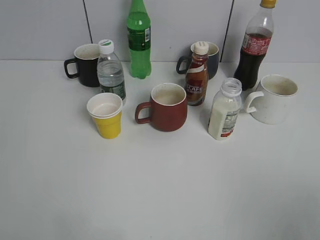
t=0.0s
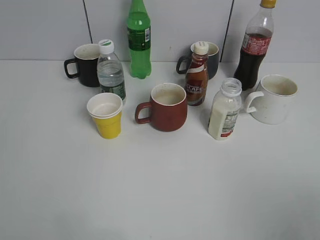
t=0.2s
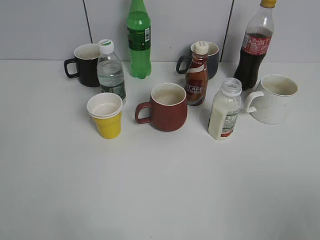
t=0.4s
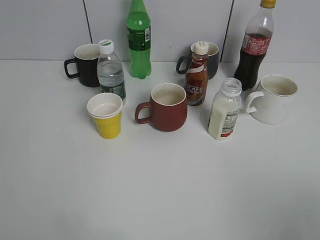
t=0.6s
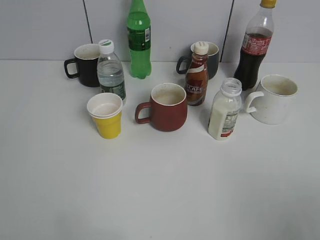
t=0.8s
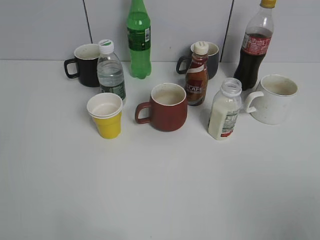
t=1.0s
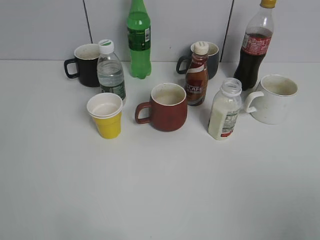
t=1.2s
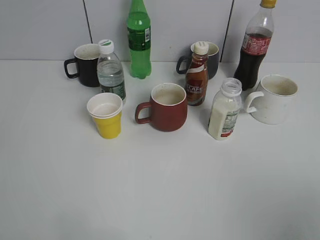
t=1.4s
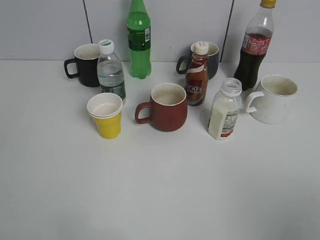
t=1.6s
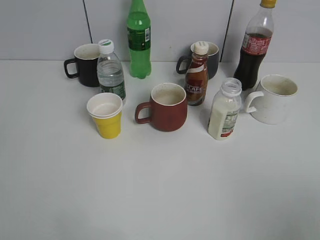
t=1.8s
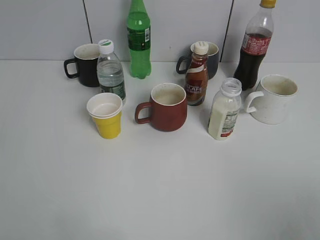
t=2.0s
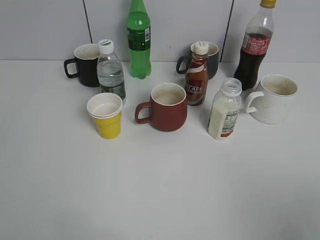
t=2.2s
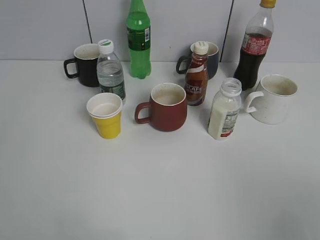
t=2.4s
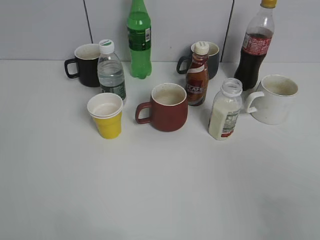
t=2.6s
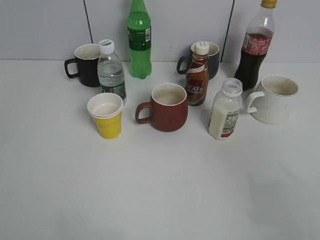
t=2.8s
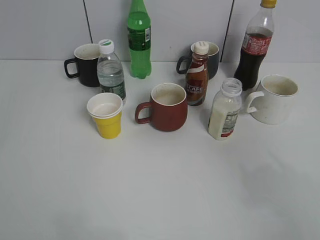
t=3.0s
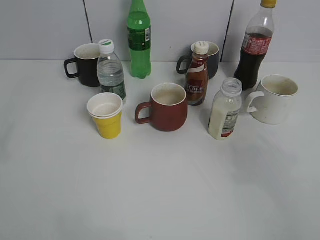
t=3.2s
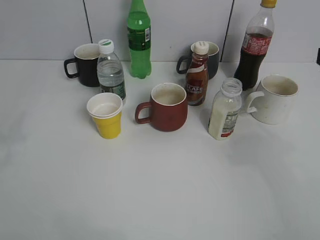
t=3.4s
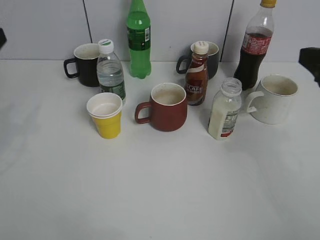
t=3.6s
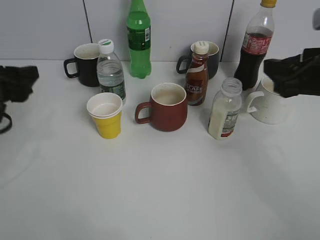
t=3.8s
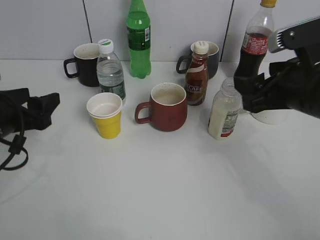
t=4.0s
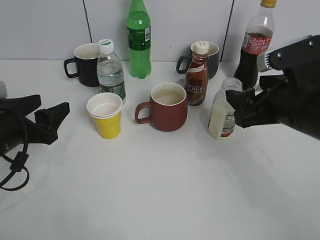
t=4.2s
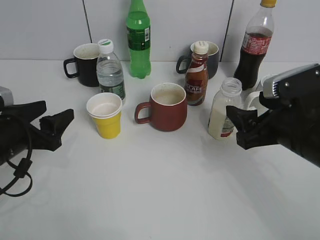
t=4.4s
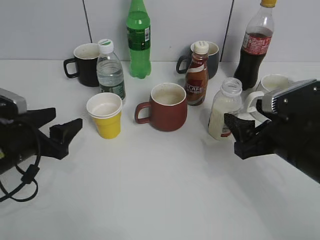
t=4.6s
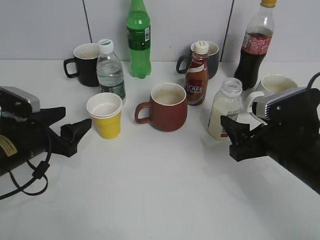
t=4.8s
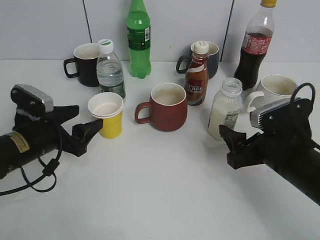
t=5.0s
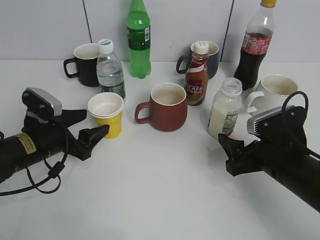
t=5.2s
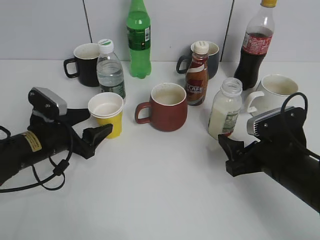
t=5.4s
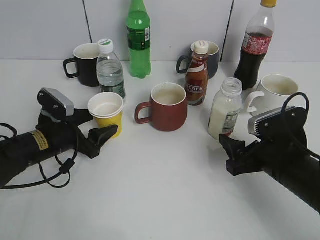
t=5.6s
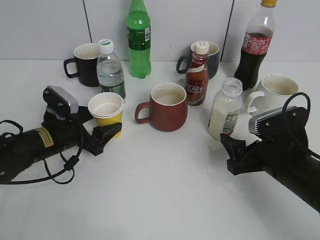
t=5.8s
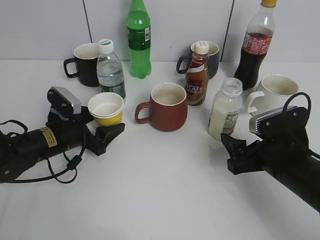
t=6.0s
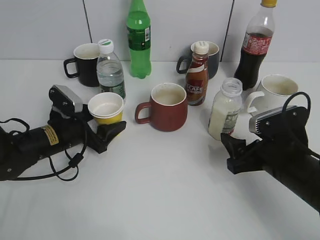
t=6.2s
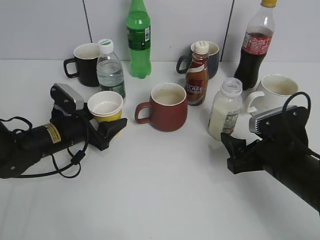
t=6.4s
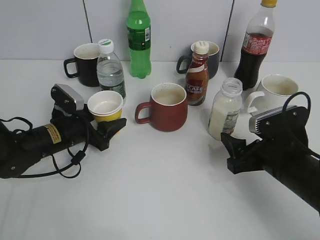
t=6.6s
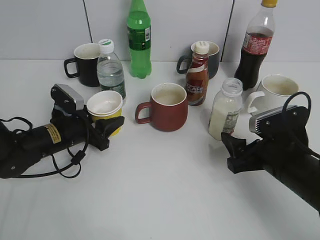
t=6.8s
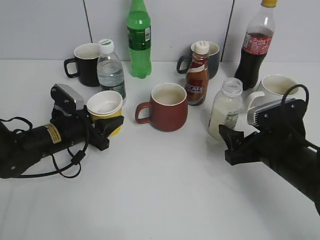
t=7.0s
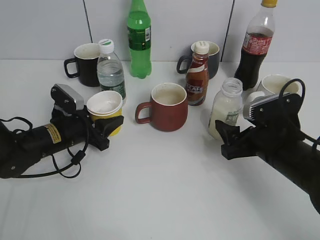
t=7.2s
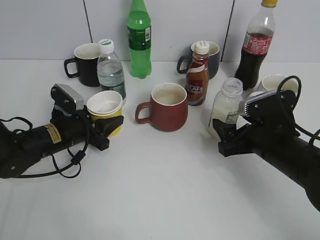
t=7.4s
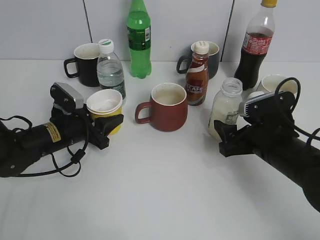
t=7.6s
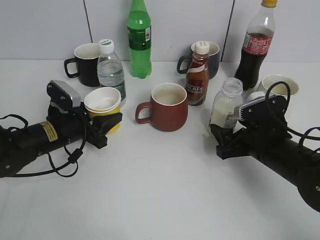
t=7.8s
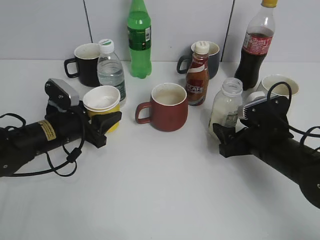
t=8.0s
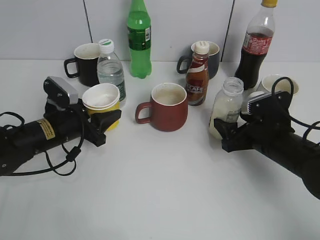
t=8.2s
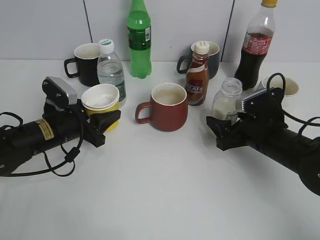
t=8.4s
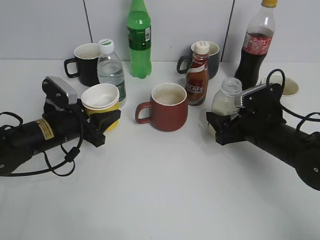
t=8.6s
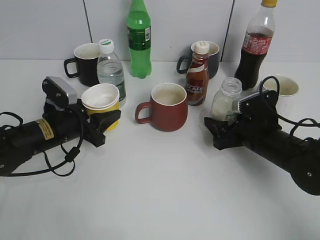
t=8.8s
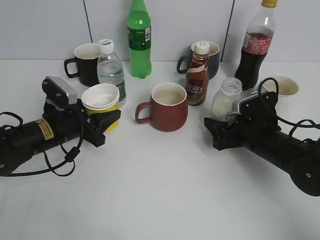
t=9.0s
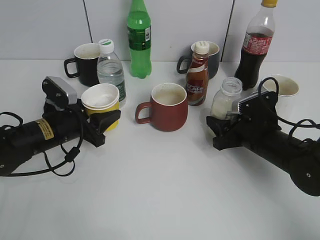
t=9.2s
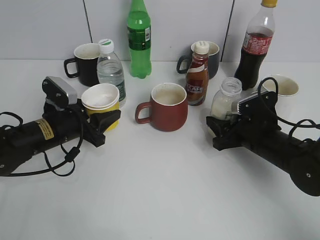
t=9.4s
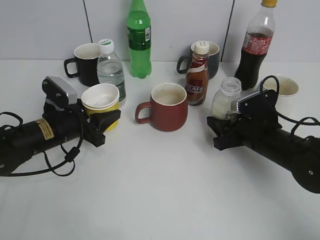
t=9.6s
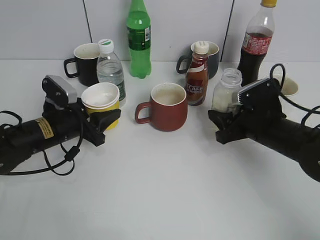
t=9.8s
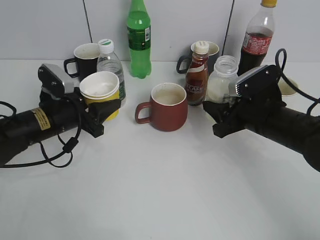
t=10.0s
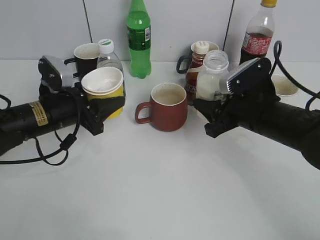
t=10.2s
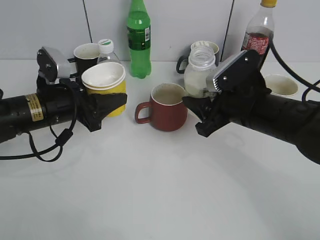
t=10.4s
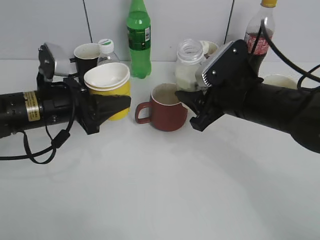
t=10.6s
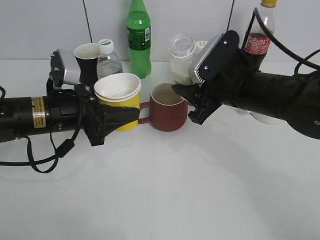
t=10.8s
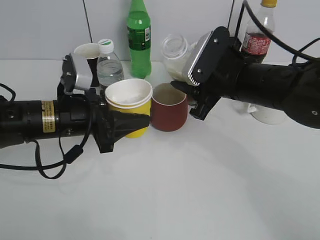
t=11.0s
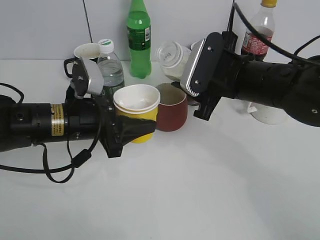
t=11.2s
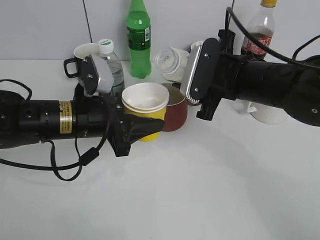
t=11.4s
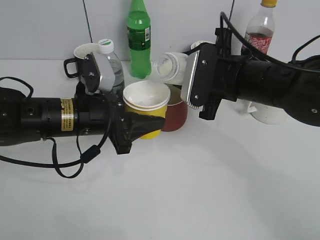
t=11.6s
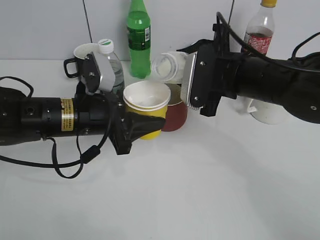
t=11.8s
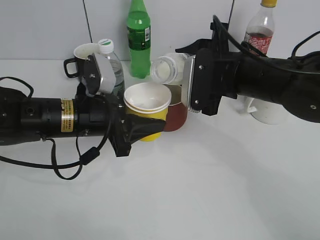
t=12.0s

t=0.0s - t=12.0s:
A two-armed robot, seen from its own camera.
Step, t=3.4s - t=6.8s: Grasp the yellow paper cup with left gripper.
Step, t=7.0s - t=8.0s: Lift the yellow paper cup with left gripper.
Step, t=8.4s - t=9.4s: Grasp the bottle with yuexian Milk with right gripper.
t=1.6s - t=3.0s: The right gripper is displaced forward by approximately 10 cm.
t=3.0s - t=4.4s: The left gripper goes approximately 25 cm downward and forward; the right gripper travels downward, forward and to the left by roughly 20 cm.
t=4.4s - t=6.0s: The right gripper moves downward, approximately 5 cm; the left gripper is displaced forward and downward by some 10 cm.
t=6.0s - t=7.6s: The left gripper closes its fingers.
t=7.6s - t=9.0s: The right gripper ends up roughly 5 cm from where it was.
t=9.0s - t=10.4s: The right gripper moves upward, roughly 10 cm, and closes. The left gripper shifts approximately 5 cm upward.
t=10.4s - t=12.0s: The left gripper moves to the right, about 5 cm. The right gripper shifts by approximately 5 cm.

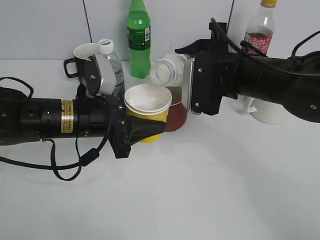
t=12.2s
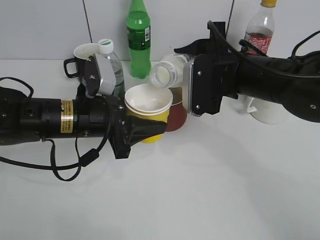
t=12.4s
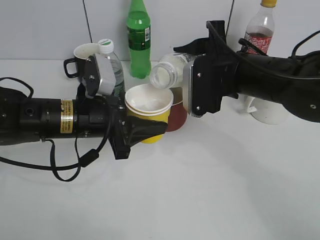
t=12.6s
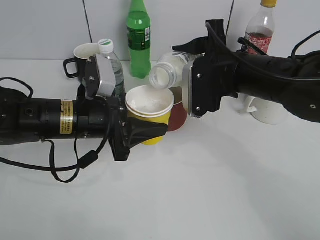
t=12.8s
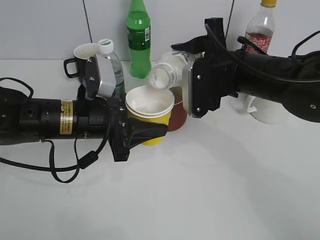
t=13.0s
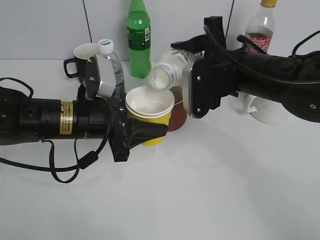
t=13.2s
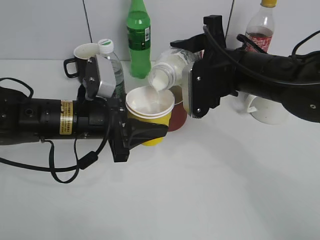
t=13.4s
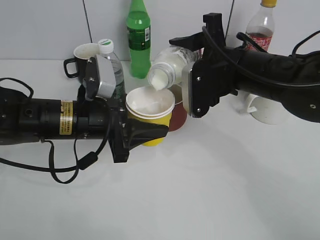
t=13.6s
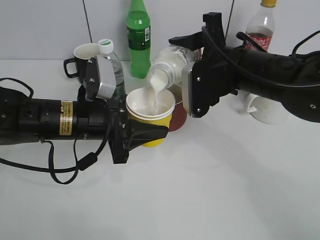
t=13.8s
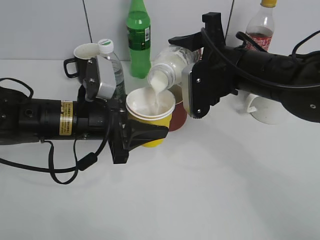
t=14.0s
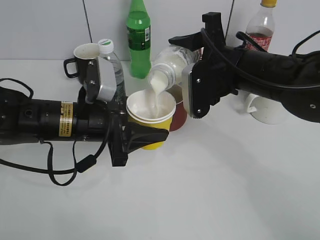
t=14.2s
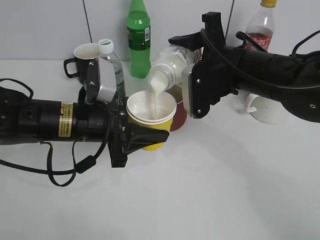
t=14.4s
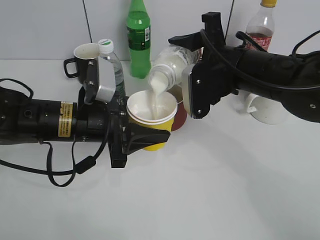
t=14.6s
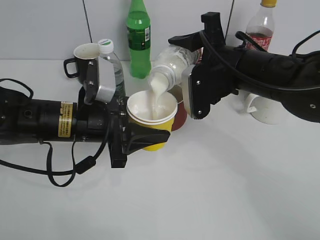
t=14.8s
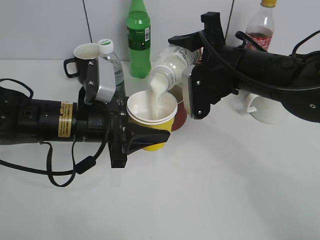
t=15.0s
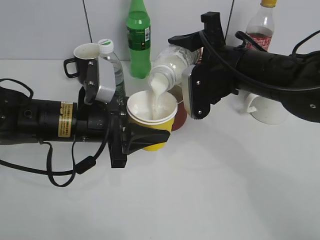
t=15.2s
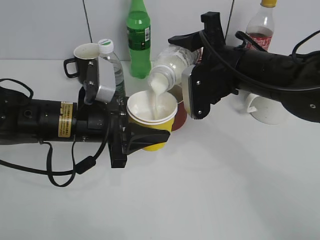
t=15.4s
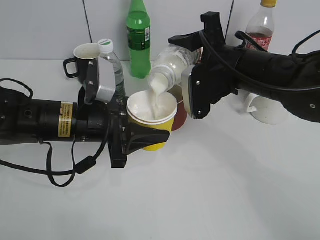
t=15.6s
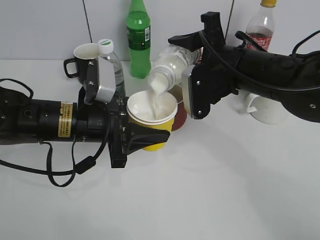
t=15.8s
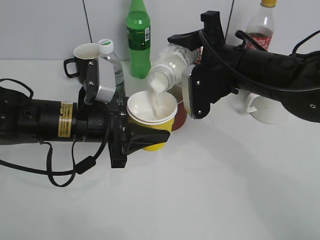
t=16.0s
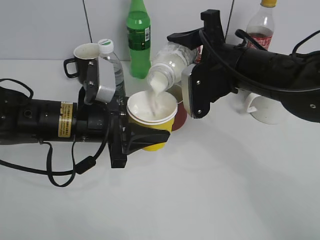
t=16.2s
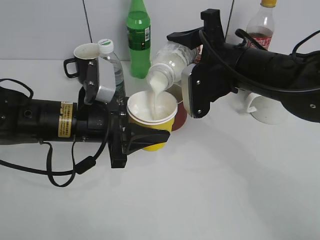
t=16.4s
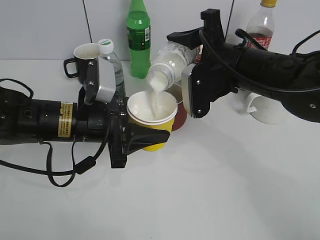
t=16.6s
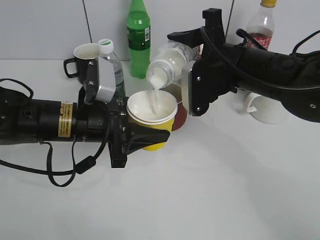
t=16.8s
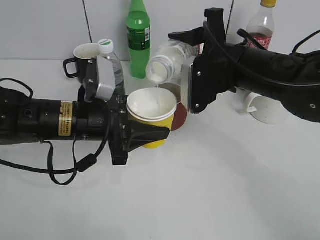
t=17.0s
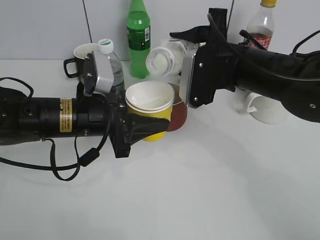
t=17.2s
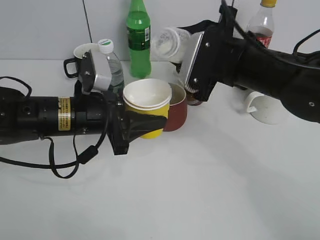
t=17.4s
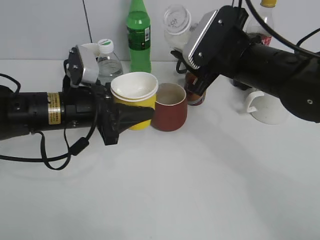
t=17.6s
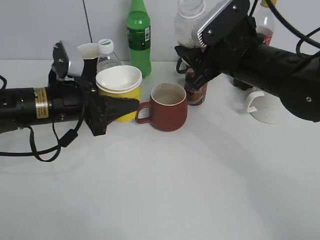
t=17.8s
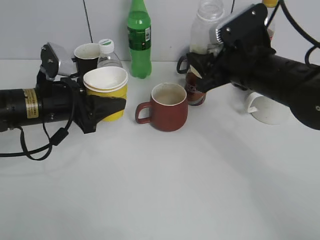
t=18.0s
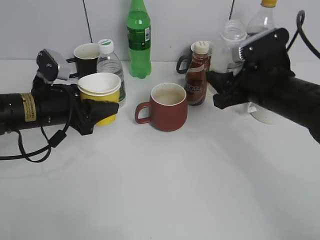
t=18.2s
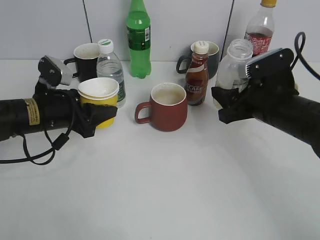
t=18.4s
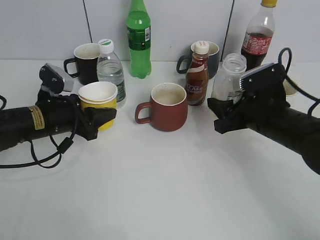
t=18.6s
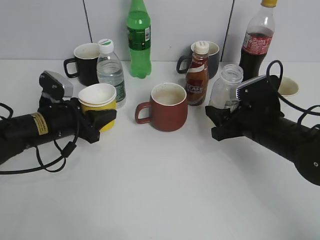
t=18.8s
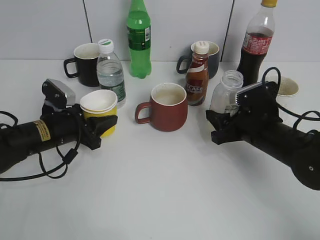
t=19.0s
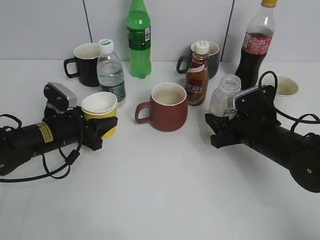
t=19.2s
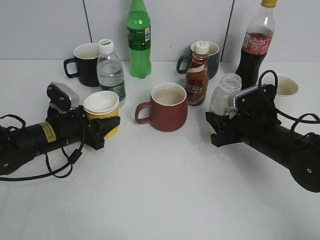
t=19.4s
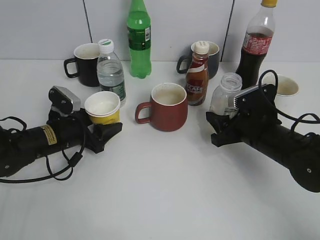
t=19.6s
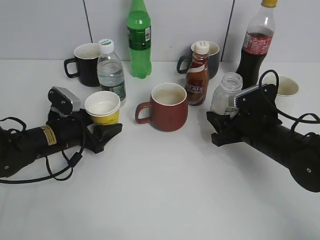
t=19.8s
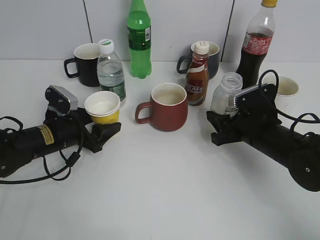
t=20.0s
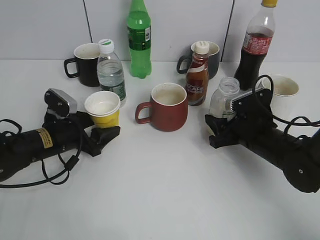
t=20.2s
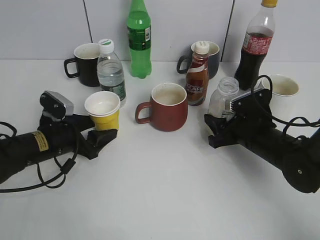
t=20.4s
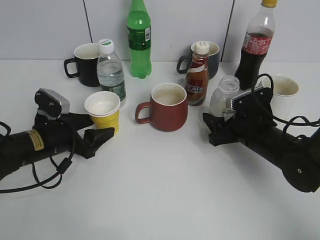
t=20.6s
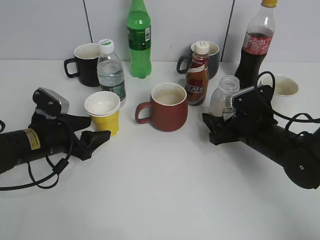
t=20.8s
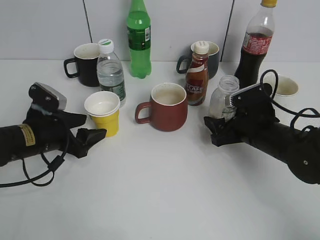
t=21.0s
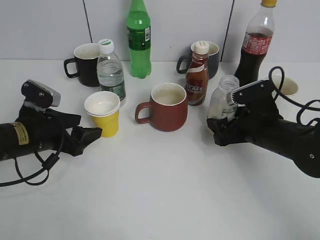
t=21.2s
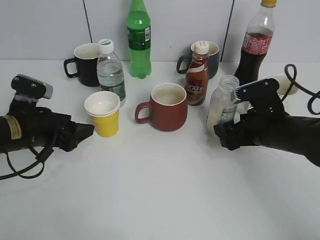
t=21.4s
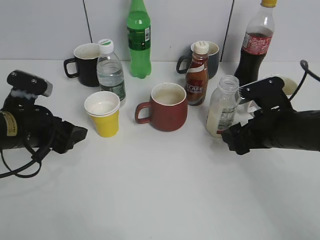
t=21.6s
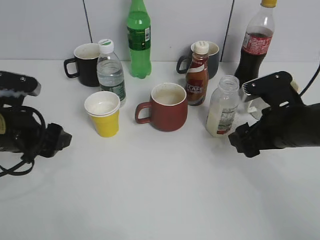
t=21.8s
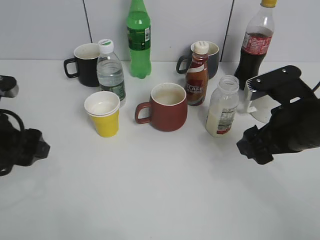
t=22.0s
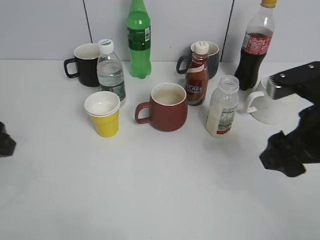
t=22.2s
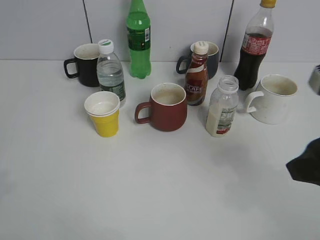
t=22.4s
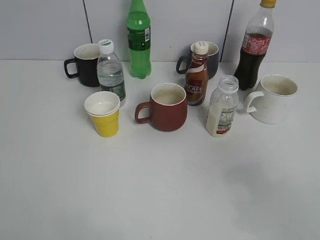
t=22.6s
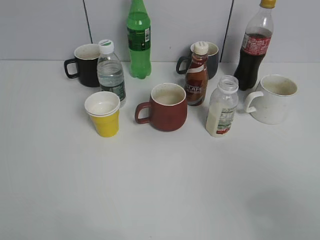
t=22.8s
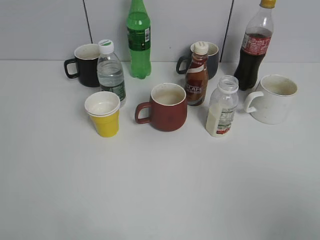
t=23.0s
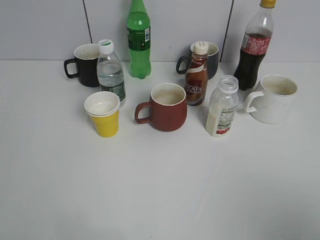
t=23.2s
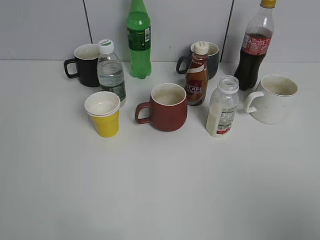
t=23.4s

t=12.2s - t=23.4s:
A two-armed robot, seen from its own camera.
Step, t=12.2s - t=17.4s: Pour the yuexian Milk from bottle to cup with right gripper.
Step, t=17.6s - t=21.6s: Place the yuexian Milk bottle on the table with right gripper.
t=12.2s - t=13.8s: The grippers stay close to where they were, moving slightly.
t=13.8s - t=15.4s: Both grippers stay about where they are.
t=15.4s - t=17.0s: The grippers make only small movements.
t=17.0s - t=18.6s: The right gripper goes approximately 10 cm downward and to the right. The left gripper travels to the left and forward by approximately 10 cm.
t=18.6s - t=20.2s: The two grippers go roughly 5 cm downward. The left gripper opens its fingers.
t=20.2s - t=21.8s: The right gripper is displaced upward by about 5 cm, and opens up. The left gripper travels upward and backward by some 10 cm.
t=21.8s - t=23.4s: Both grippers travel together backward and upward, roughly 30 cm. The left gripper closes up.
